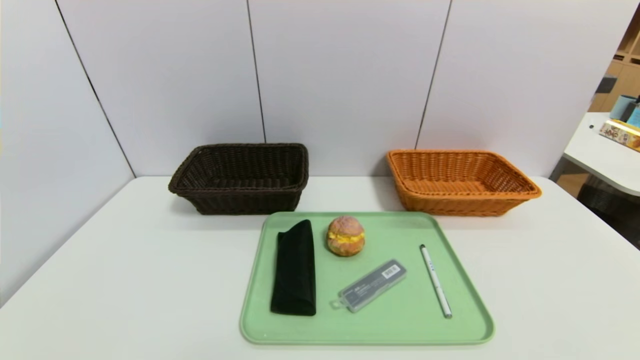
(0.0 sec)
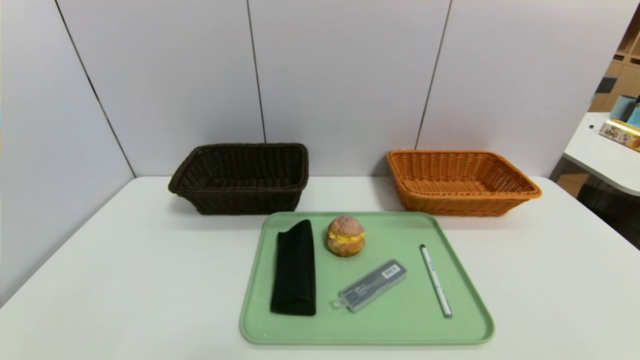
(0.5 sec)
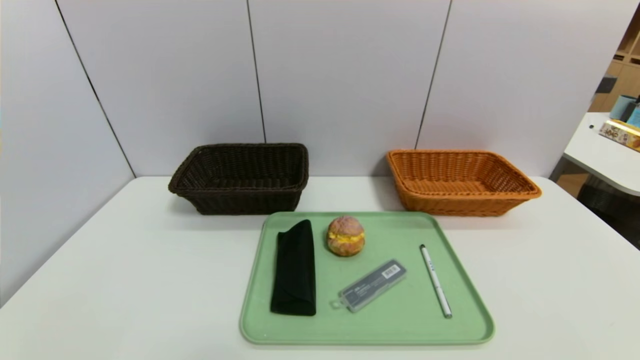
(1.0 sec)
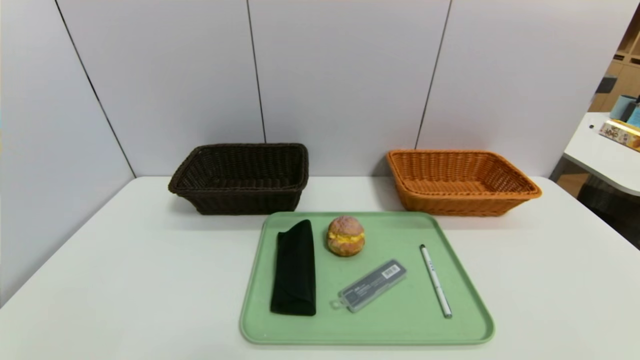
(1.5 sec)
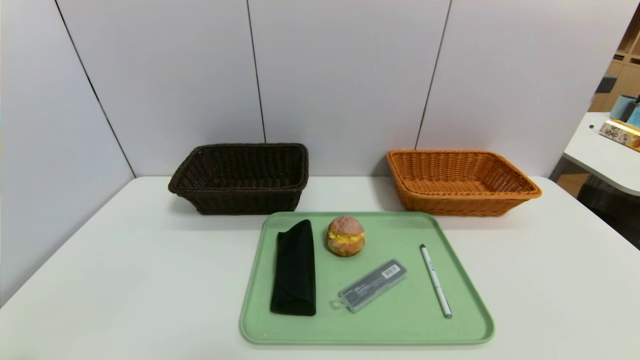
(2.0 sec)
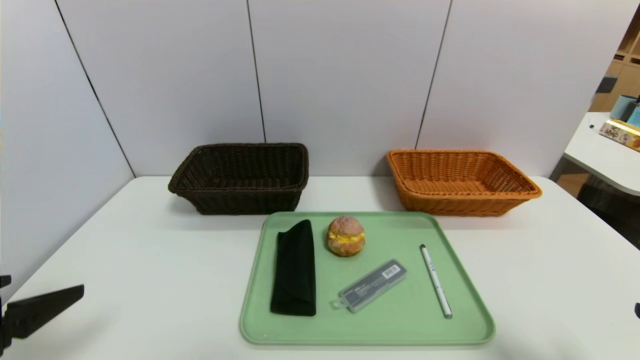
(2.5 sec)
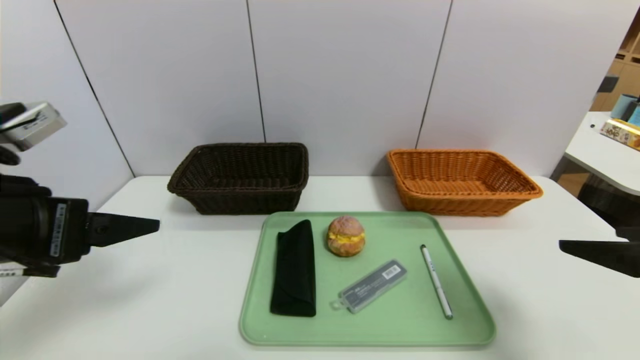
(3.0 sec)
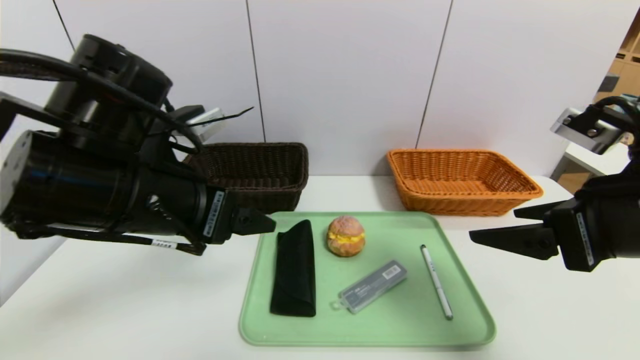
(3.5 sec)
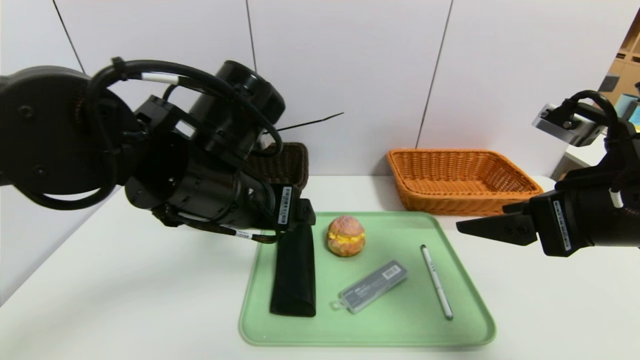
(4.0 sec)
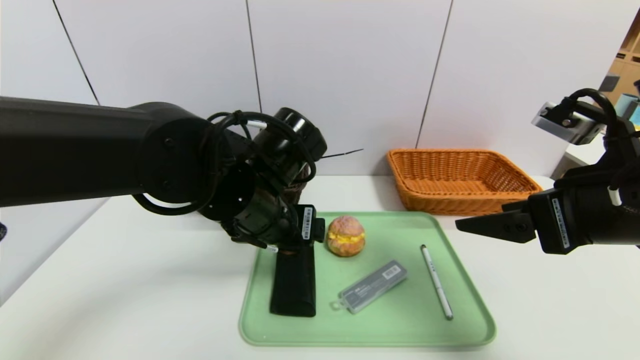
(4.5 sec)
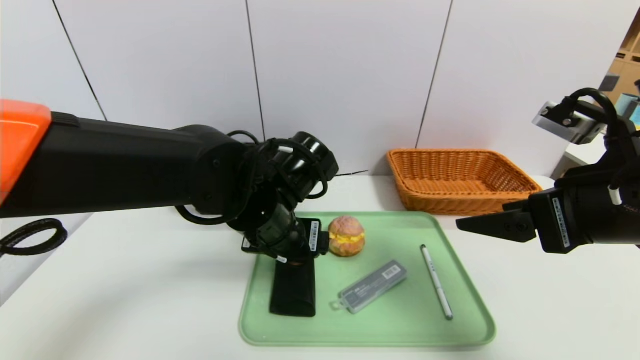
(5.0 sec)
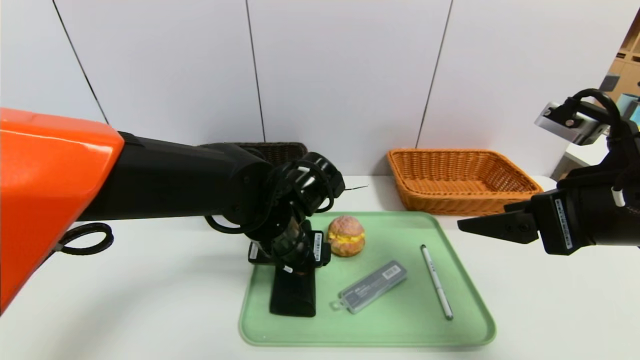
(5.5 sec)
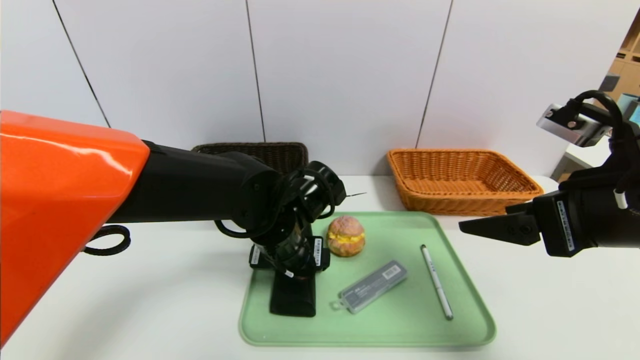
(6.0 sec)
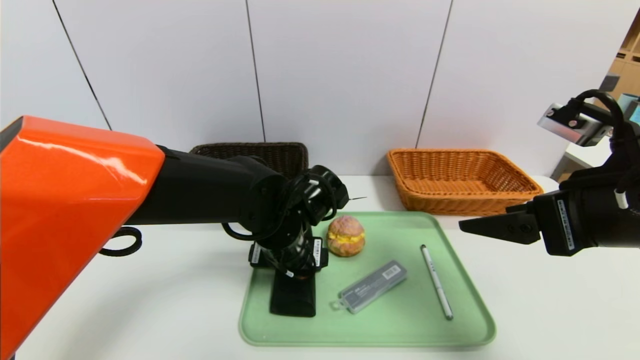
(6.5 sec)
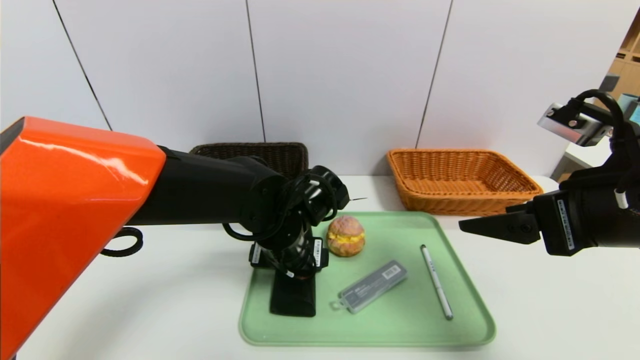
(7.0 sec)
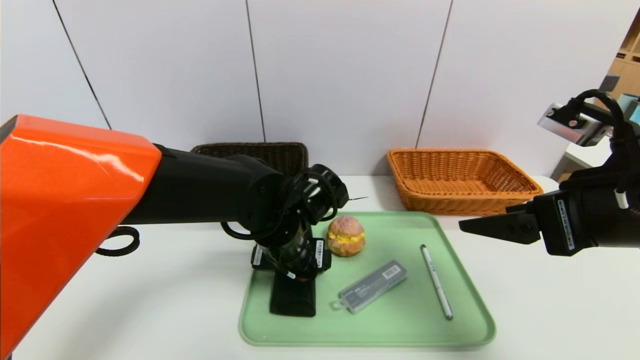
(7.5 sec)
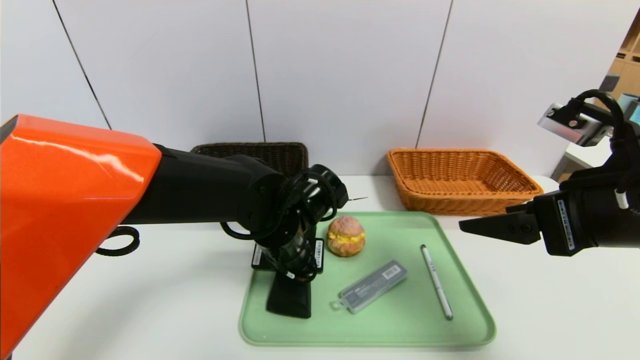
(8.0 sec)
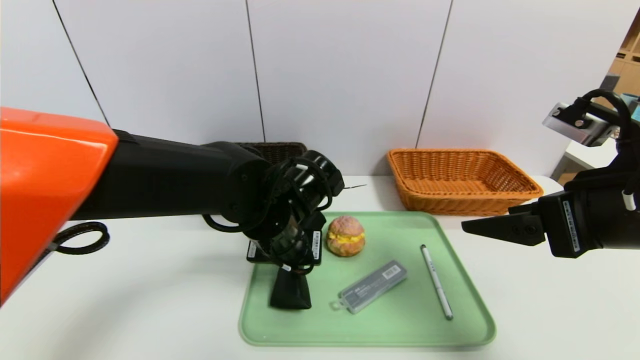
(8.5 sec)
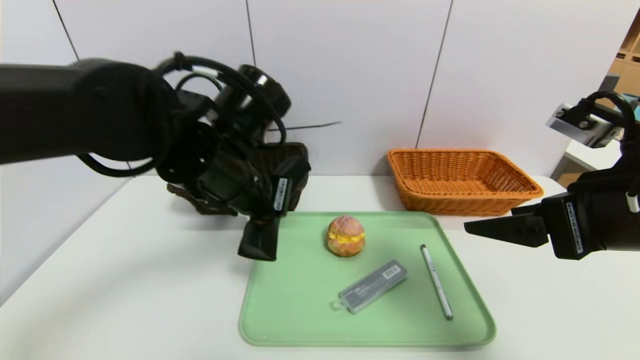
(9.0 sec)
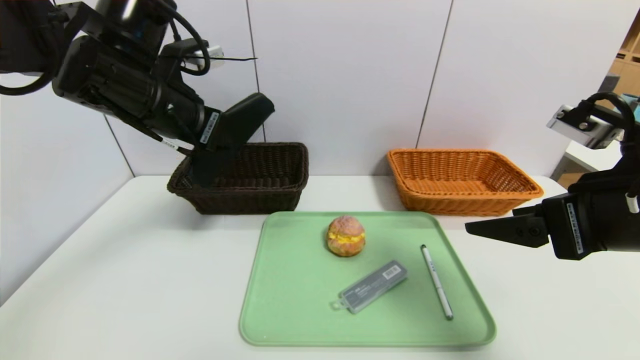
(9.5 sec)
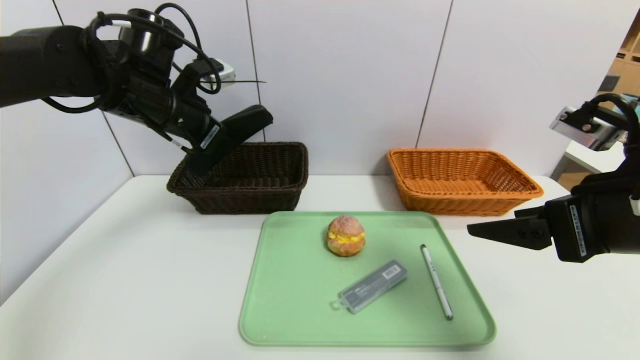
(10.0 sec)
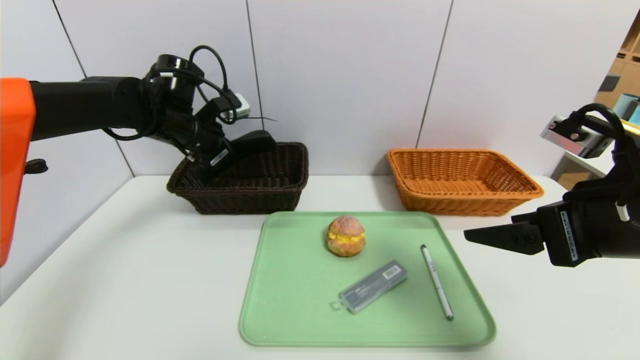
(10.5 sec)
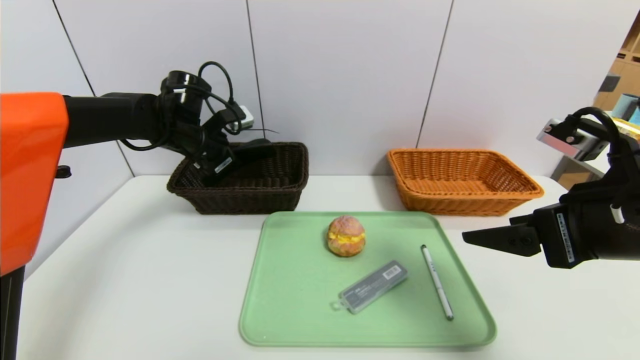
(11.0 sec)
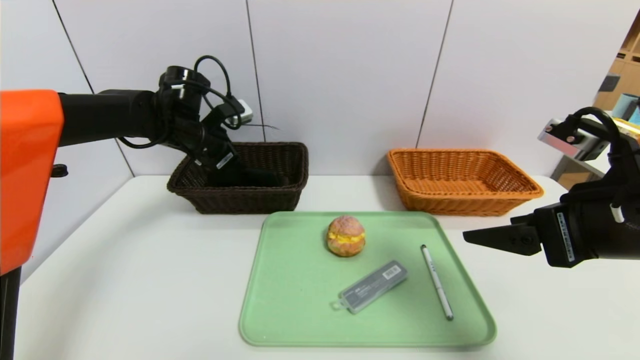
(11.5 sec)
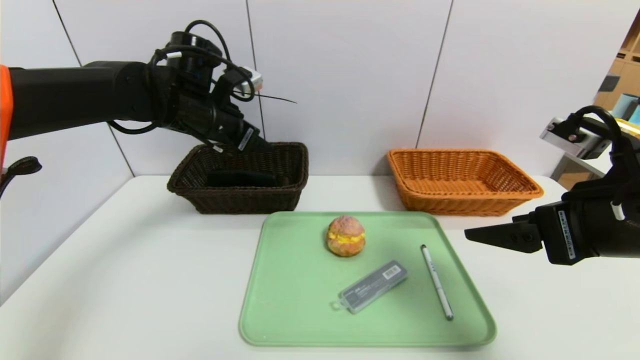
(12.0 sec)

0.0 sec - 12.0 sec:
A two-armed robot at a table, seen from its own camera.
Task of the whole recording: place the food in the right basket with the right gripper, and place the non food items in the left basket with the left gripper.
Step, 0.0 sec - 11.5 sec: Grasp the glasses case and put it in the left basket.
0.0 sec - 2.0 sec: The grippers both shift upward by approximately 5 cm.
2.0 sec - 4.0 sec: The right gripper goes about 25 cm forward, upward and to the left. Meanwhile the left gripper moves forward, to the right and upward, some 30 cm.
4.0 sec - 6.0 sec: The left gripper heads downward, covering some 10 cm.
6.0 sec - 8.0 sec: The left gripper closes.
8.0 sec - 10.0 sec: The left gripper goes some 25 cm to the left, upward and forward.
10.0 sec - 12.0 sec: The left gripper opens.

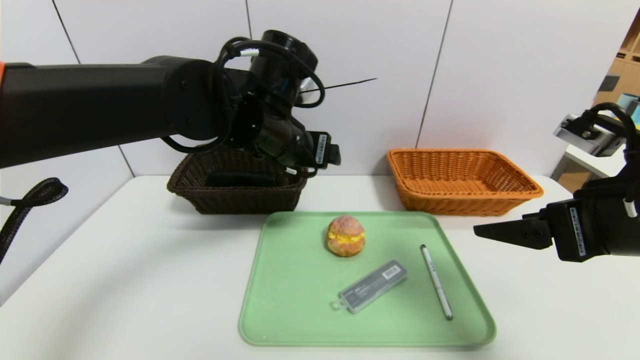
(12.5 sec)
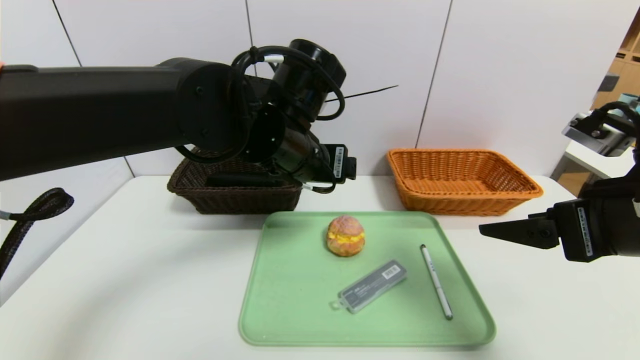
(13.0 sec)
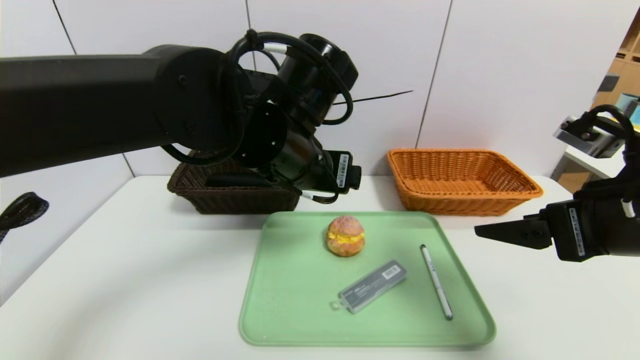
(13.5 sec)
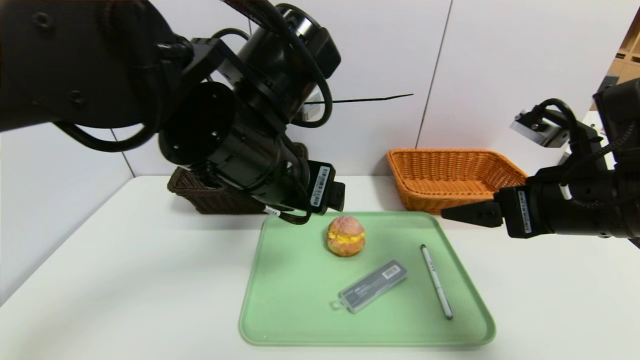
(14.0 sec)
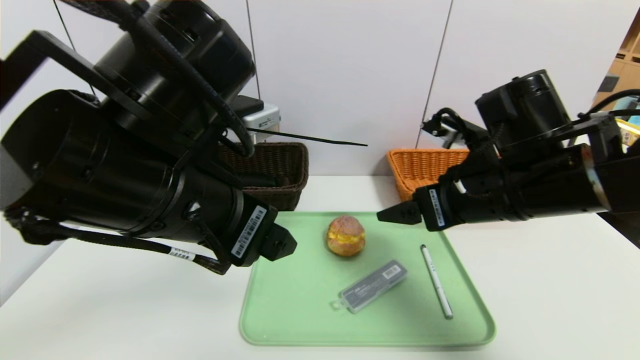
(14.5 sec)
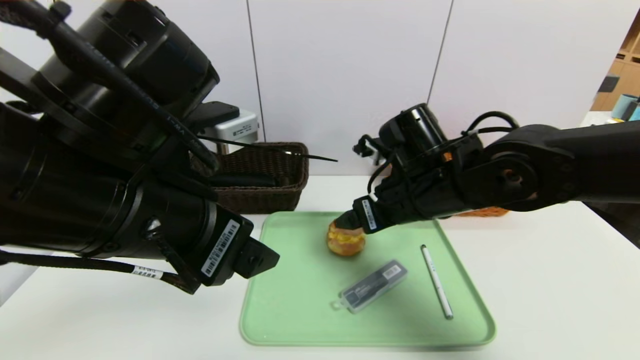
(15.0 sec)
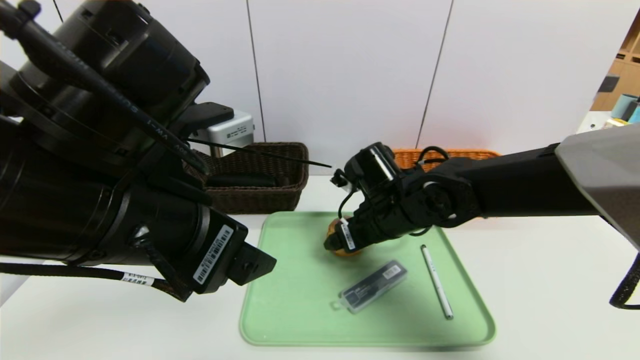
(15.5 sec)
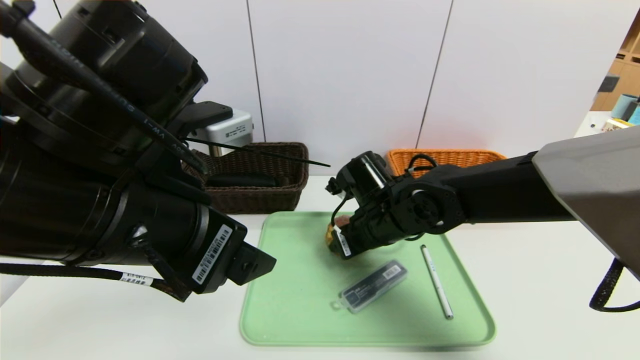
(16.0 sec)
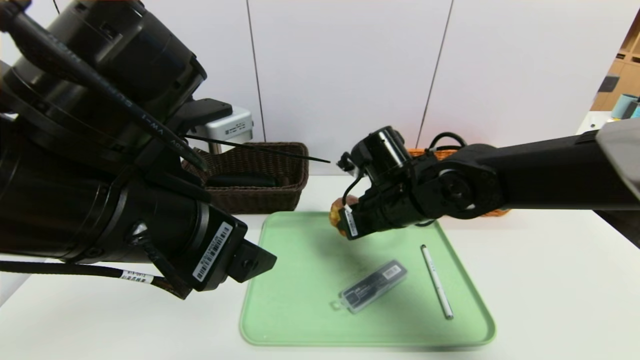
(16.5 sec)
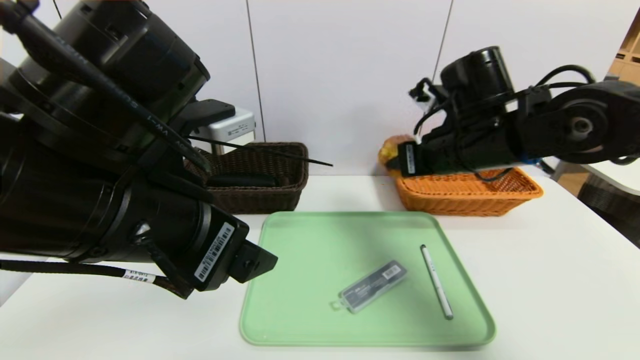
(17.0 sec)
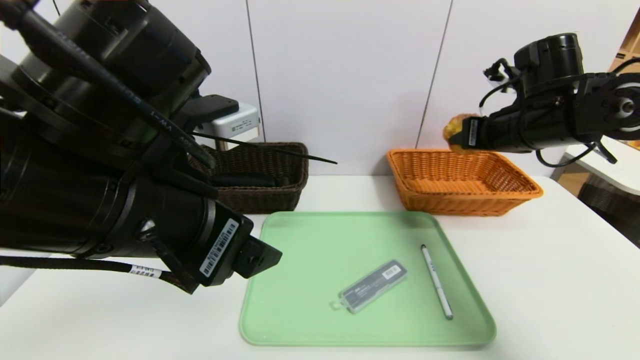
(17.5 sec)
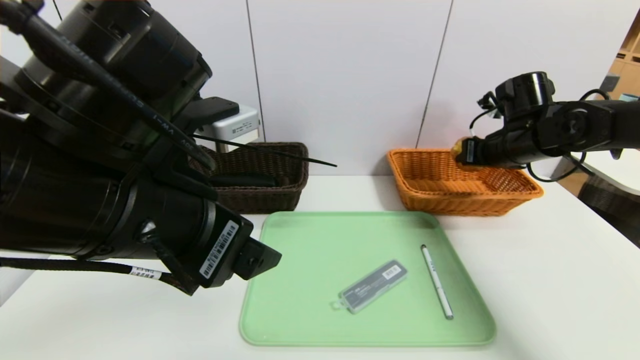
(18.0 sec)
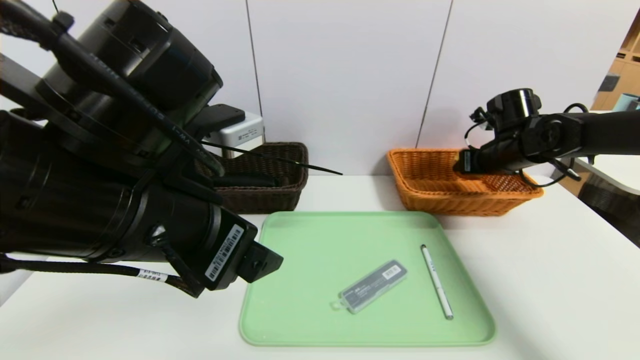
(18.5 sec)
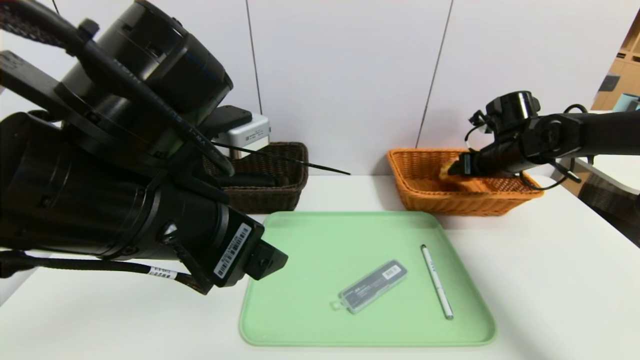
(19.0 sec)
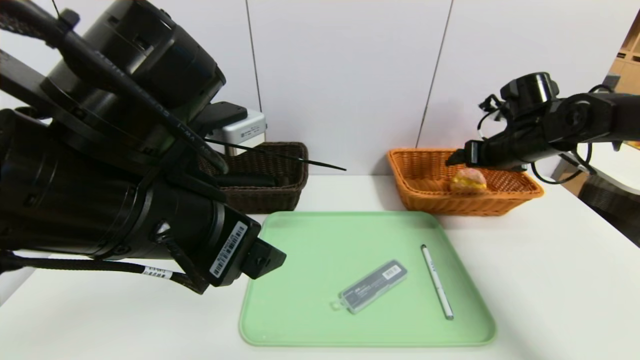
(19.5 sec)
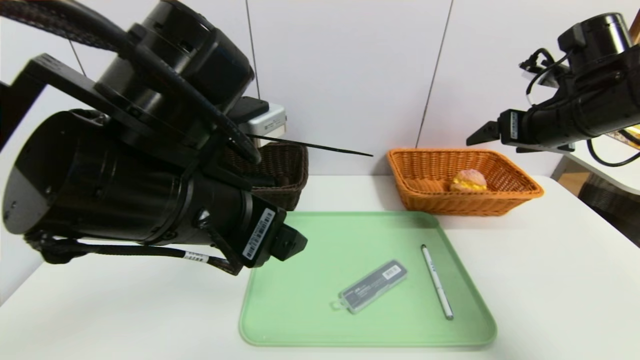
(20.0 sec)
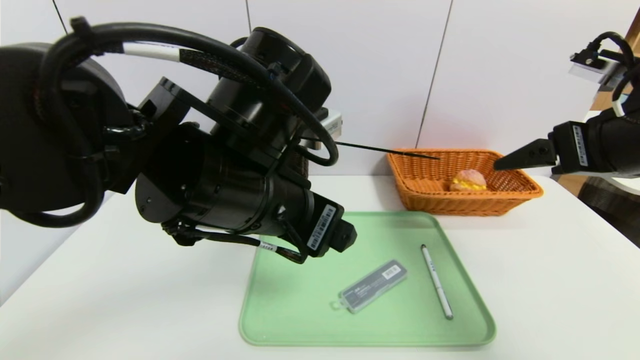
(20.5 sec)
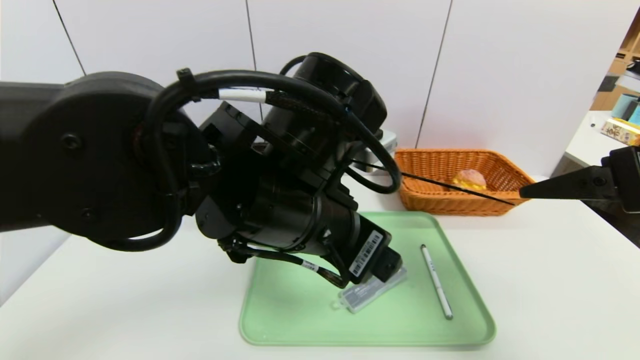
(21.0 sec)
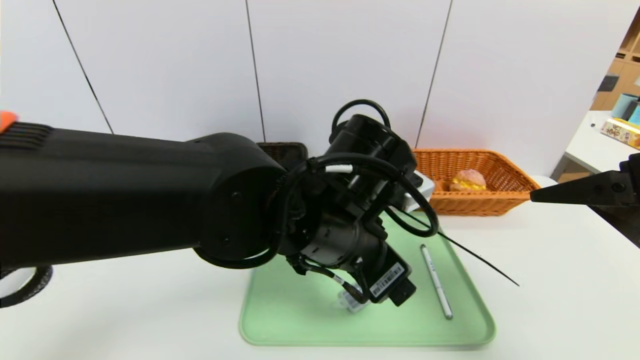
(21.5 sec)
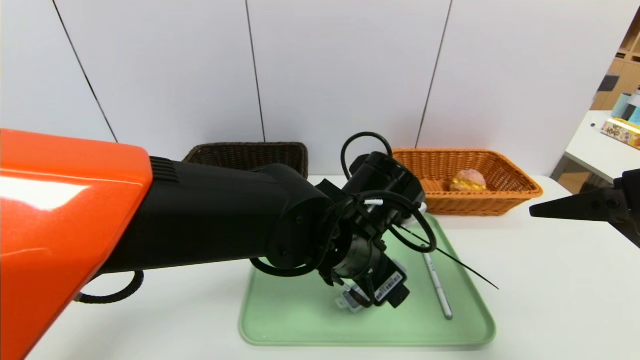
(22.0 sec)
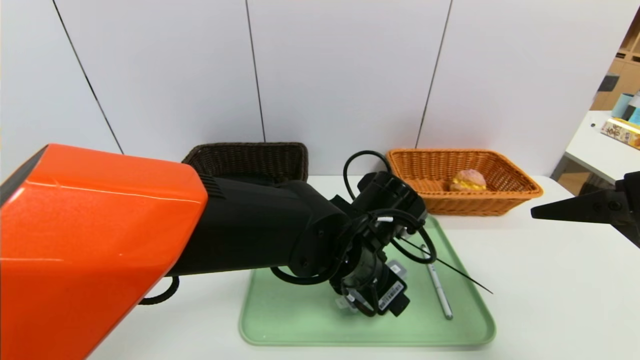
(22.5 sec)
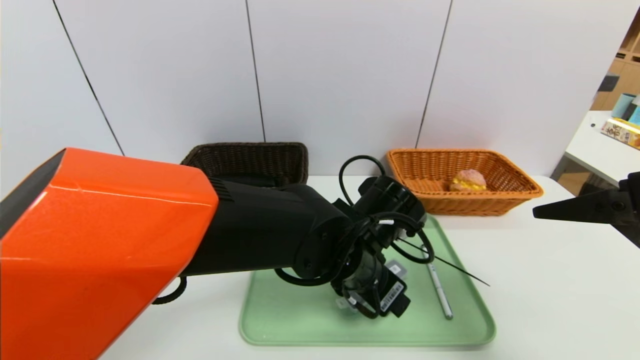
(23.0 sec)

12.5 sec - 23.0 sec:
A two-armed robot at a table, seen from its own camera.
Task of the whole recording: place the food in the right basket with the right gripper, and place the non food items in the left basket with the left gripper.
Step, 12.5 sec - 19.0 sec: Grasp the round bread and put it in the right basket.
12.5 sec - 14.5 sec: The right gripper travels to the left and forward by about 10 cm. Meanwhile the left gripper heads backward and to the left, covering some 15 cm.
14.5 sec - 16.5 sec: The right gripper shifts approximately 10 cm to the left, forward and downward, and closes its fingers.
16.5 sec - 19.0 sec: The right gripper travels to the right and forward by approximately 25 cm, and opens its fingers.
19.0 sec - 21.0 sec: The right gripper moves backward and upward, approximately 30 cm; the left gripper moves to the right, roughly 10 cm.
21.0 sec - 23.0 sec: The left gripper is displaced downward and to the right by roughly 15 cm.
